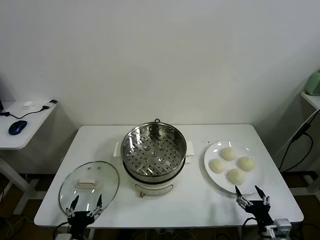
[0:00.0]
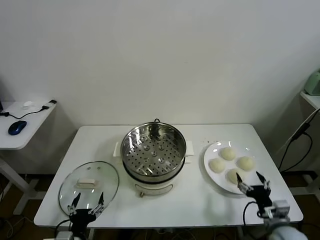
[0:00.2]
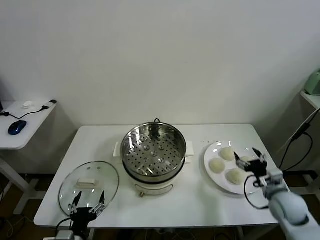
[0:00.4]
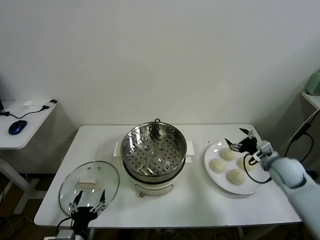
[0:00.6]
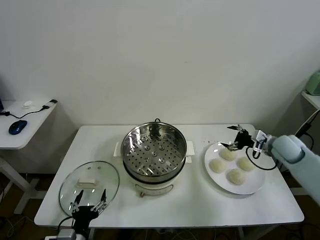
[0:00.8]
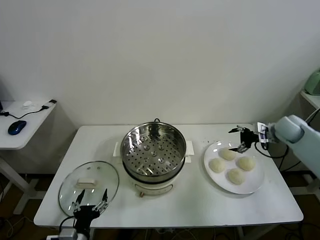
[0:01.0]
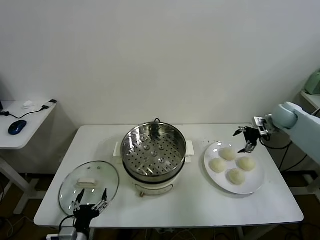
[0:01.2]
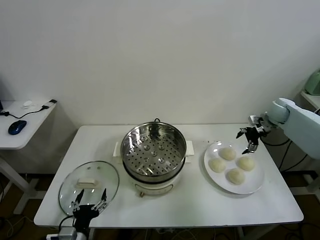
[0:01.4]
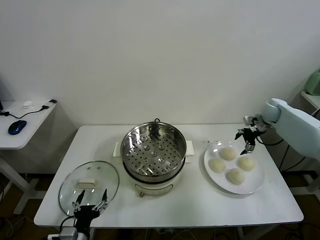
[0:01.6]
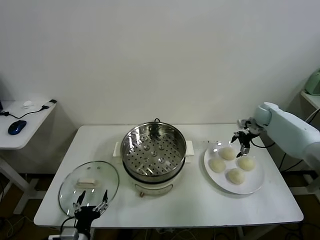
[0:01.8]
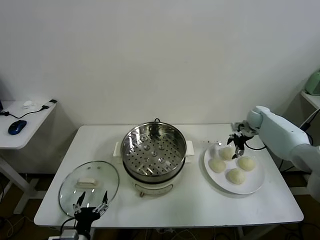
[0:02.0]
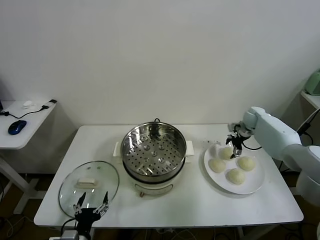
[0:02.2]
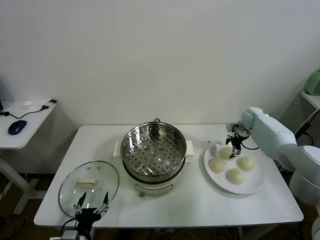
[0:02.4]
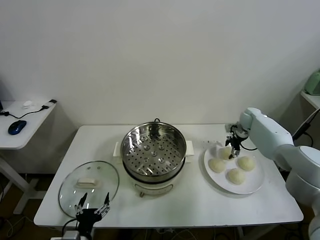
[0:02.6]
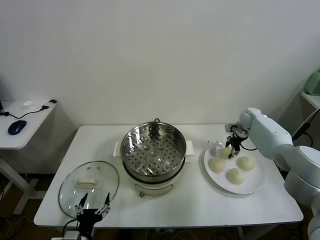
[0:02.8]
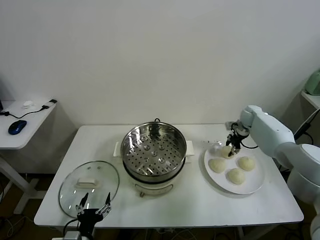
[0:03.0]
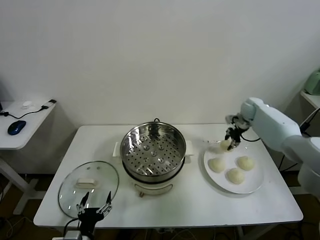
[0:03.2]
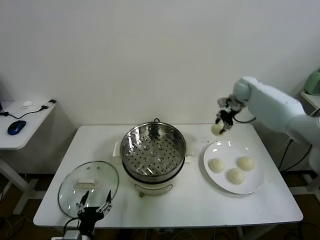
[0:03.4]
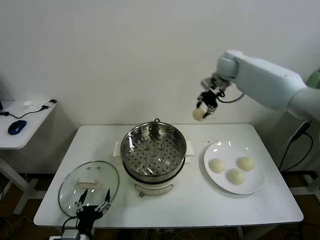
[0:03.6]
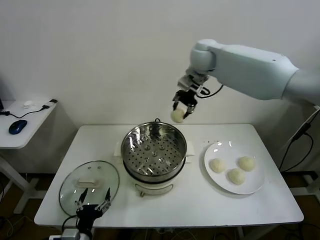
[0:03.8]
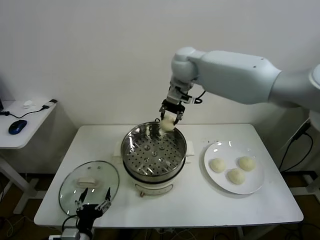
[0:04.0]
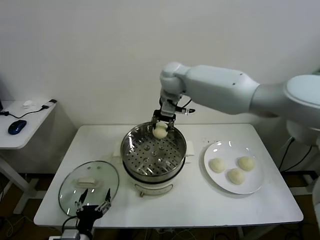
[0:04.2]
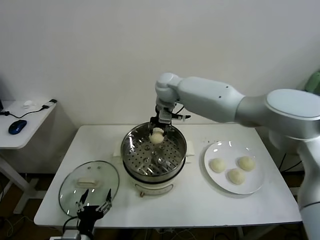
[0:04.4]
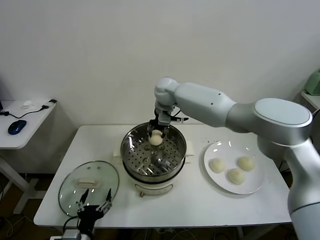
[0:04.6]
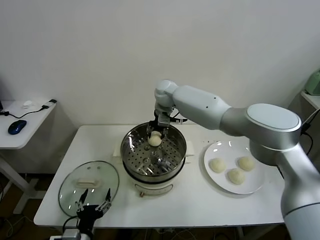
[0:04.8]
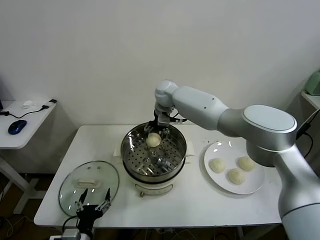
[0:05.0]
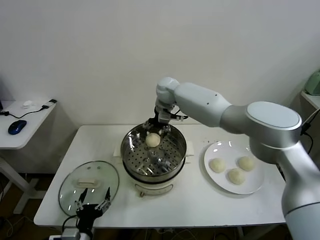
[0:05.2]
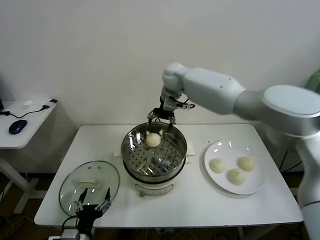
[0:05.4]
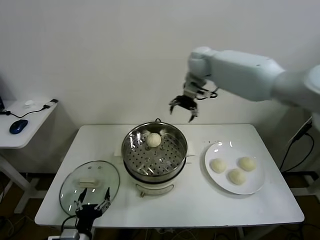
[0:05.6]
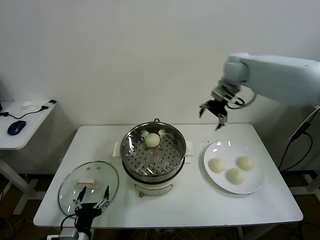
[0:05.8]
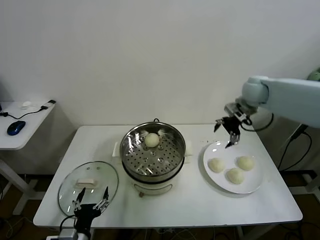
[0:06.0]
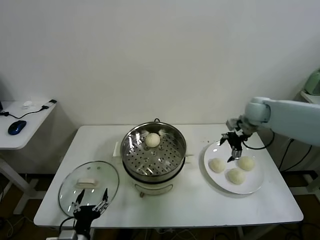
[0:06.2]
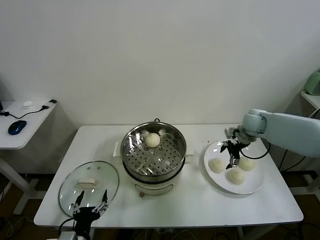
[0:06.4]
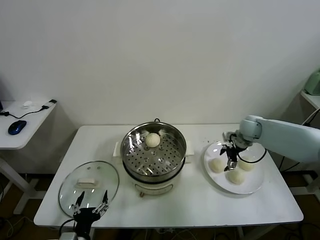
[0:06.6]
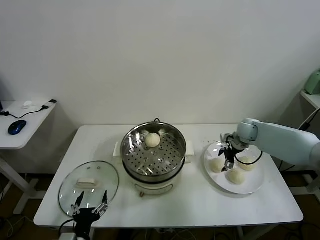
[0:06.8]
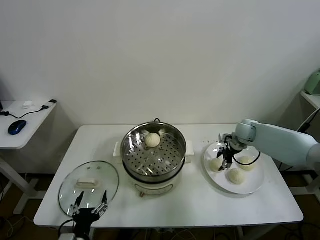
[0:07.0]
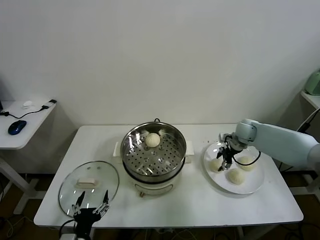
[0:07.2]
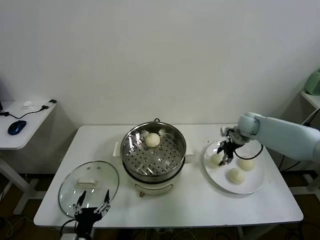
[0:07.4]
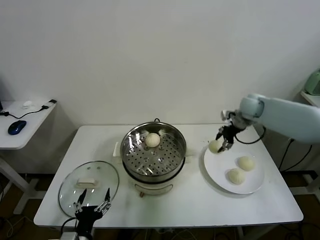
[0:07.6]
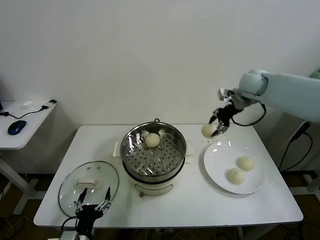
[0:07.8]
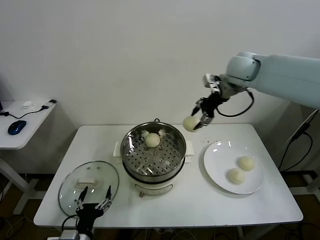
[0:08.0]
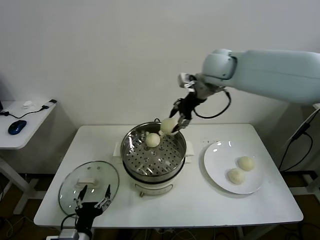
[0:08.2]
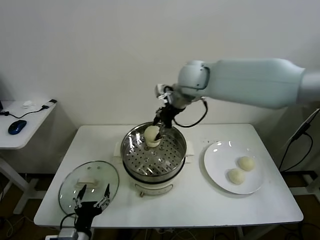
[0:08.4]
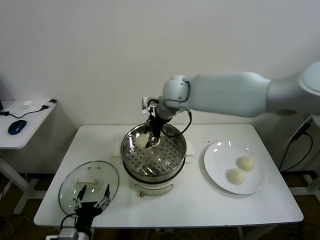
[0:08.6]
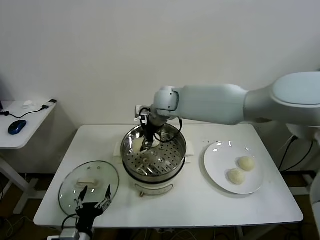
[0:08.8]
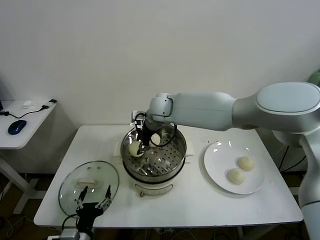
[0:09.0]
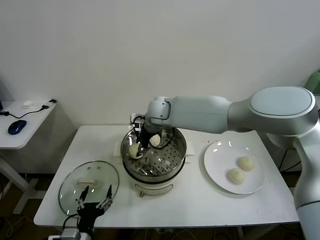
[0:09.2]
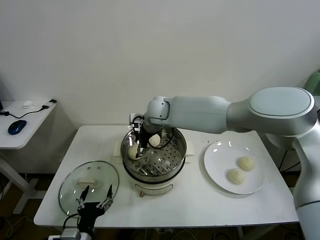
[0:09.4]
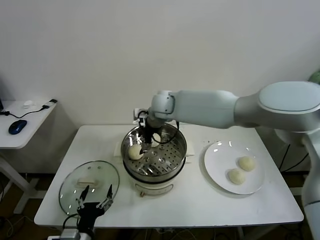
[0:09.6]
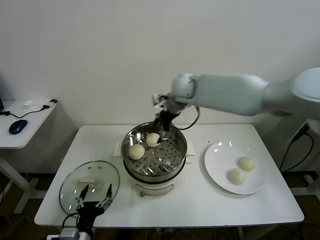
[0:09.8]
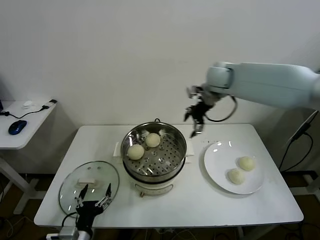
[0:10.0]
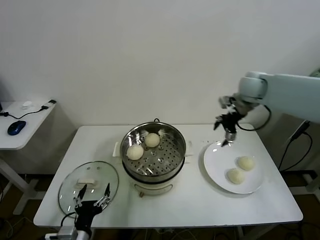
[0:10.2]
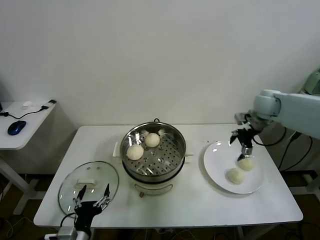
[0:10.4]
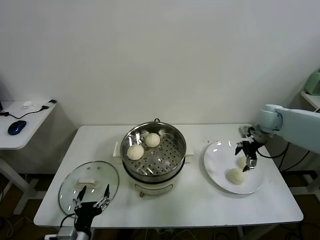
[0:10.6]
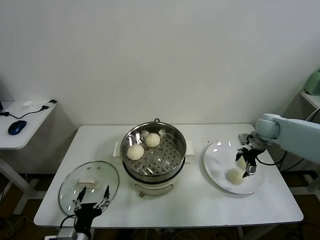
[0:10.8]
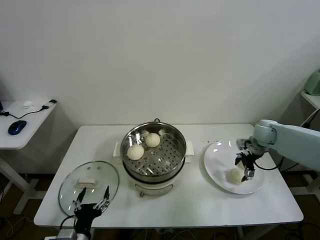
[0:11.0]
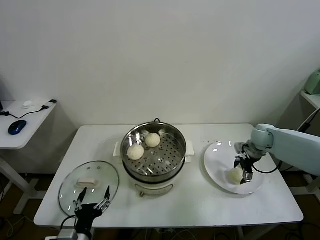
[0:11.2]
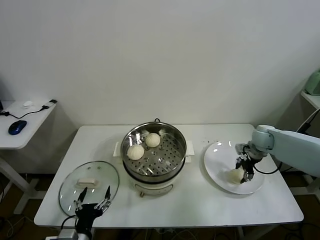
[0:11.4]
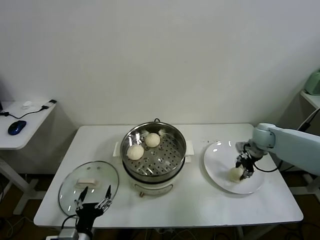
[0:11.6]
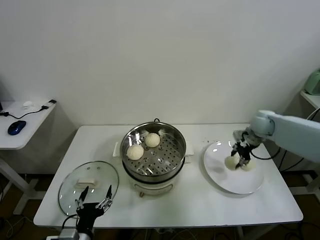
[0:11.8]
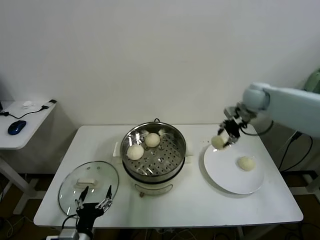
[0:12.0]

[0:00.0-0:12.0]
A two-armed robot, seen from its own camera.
Task of the whole recording: take steamed baozi put them in steamer.
Step, 0:00.0 to 0:02.6: Grasp the baozi in the plate with right gripper.
Step, 0:02.8 to 0:05.2: Place the baozi on the steamer with right gripper.
Step, 0:05.4 to 0:07.2: Grasp the baozi in the plate with right gripper.
Step, 0:07.4 to 0:09.6: Place the baozi on the steamer with right gripper.
Step, 0:09.8 to 0:11.4: Grasp the baozi in the plate with right gripper.
0:01.6 to 0:03.0: The right gripper shifts by about 5 cm, and closes its fingers.
0:03.0 to 0:04.4: The right gripper is displaced to the left by about 35 cm.
0:04.4 to 0:06.0: The right gripper goes about 30 cm to the right, and opens.
0:06.0 to 0:07.6: The right gripper goes downward and returns, roughly 15 cm each way, and closes.
0:07.6 to 0:09.0: The right gripper is displaced to the left by about 35 cm.
0:09.0 to 0:10.4: The right gripper goes approximately 40 cm to the right, and opens its fingers.
0:10.4 to 0:12.0: The right gripper is displaced to the left and upward by about 10 cm, and closes.

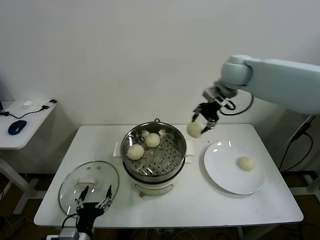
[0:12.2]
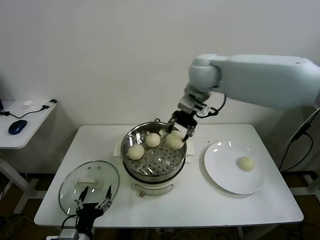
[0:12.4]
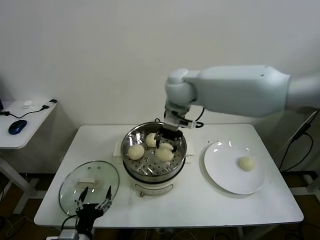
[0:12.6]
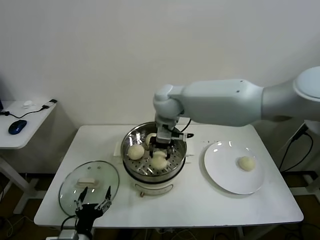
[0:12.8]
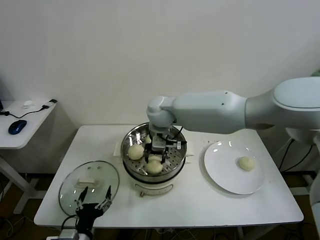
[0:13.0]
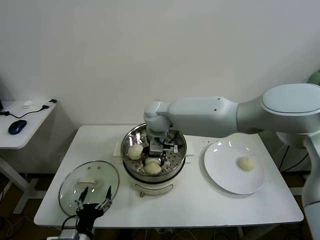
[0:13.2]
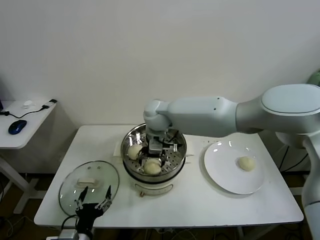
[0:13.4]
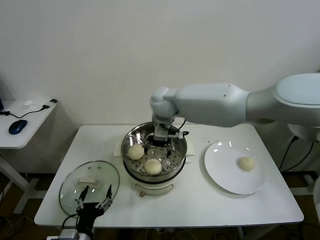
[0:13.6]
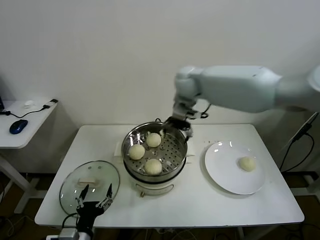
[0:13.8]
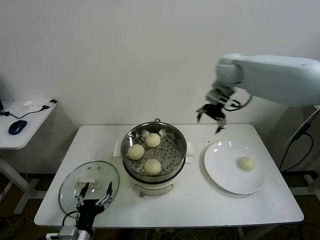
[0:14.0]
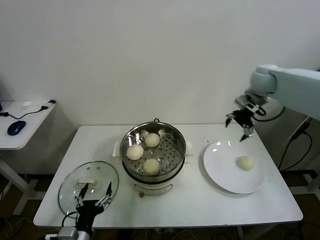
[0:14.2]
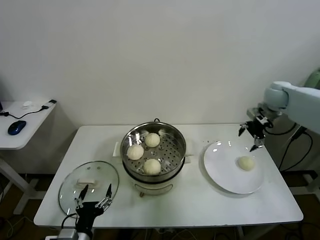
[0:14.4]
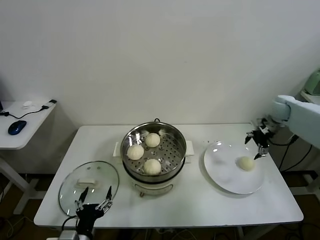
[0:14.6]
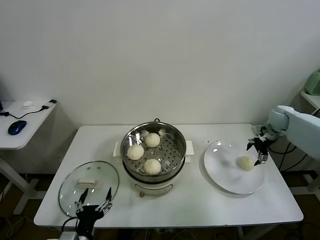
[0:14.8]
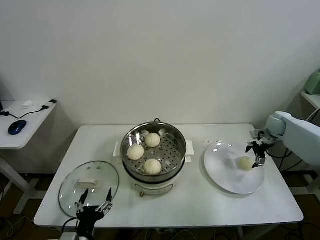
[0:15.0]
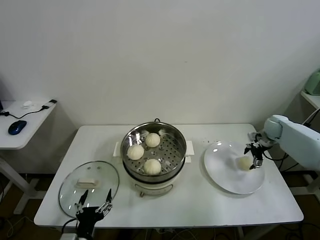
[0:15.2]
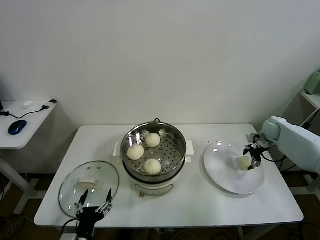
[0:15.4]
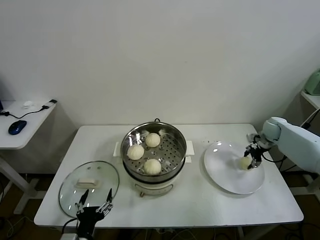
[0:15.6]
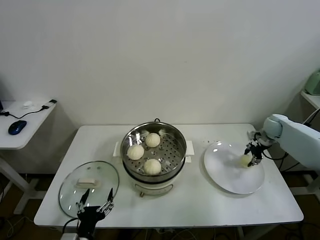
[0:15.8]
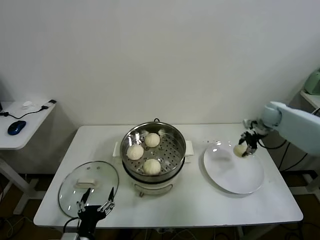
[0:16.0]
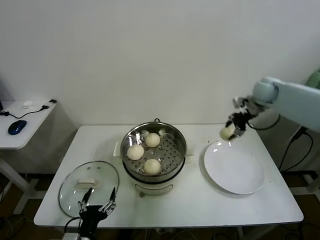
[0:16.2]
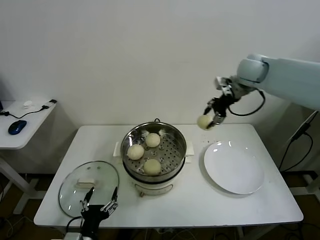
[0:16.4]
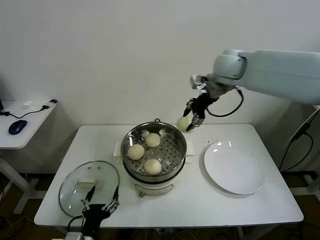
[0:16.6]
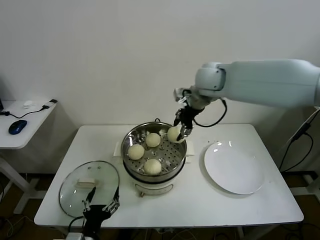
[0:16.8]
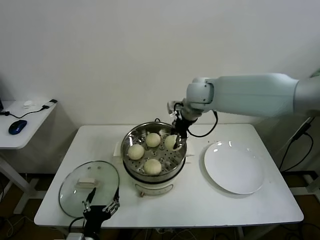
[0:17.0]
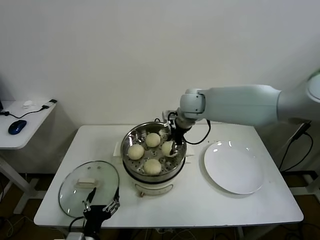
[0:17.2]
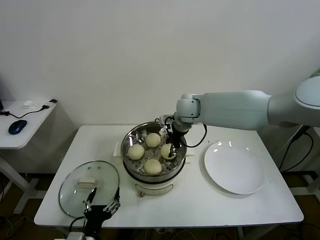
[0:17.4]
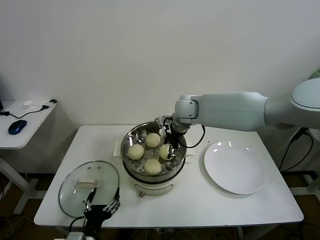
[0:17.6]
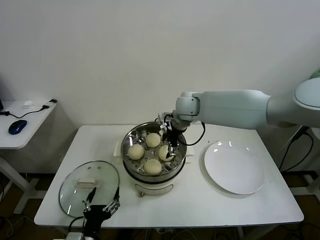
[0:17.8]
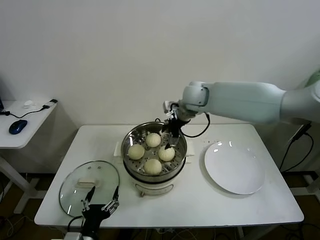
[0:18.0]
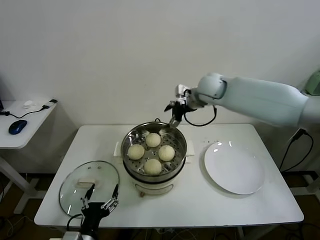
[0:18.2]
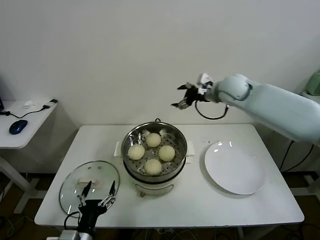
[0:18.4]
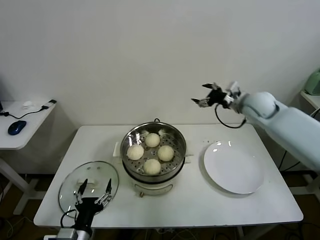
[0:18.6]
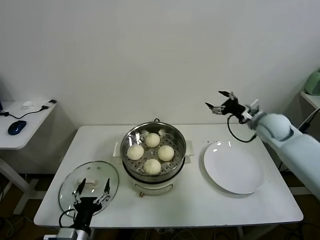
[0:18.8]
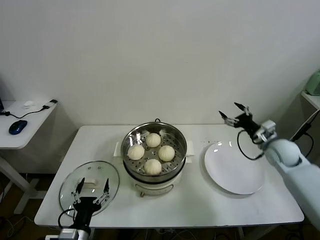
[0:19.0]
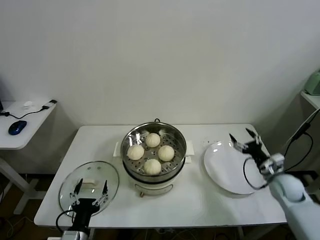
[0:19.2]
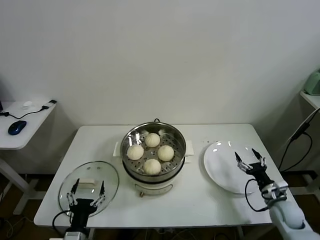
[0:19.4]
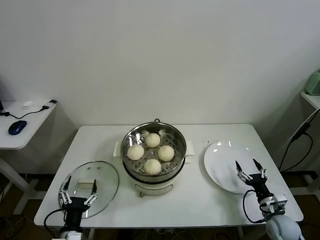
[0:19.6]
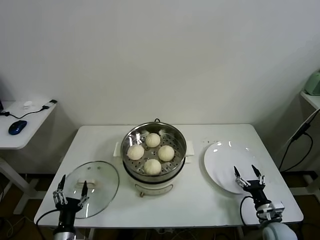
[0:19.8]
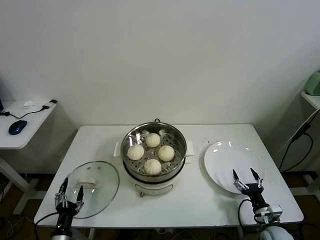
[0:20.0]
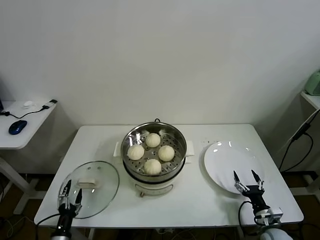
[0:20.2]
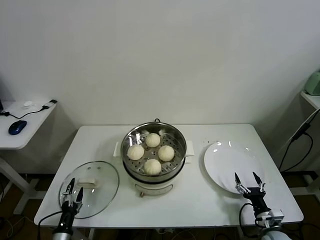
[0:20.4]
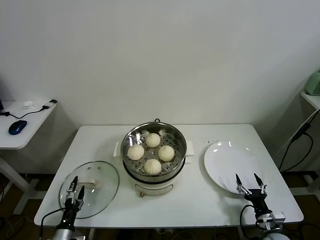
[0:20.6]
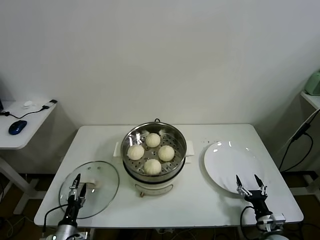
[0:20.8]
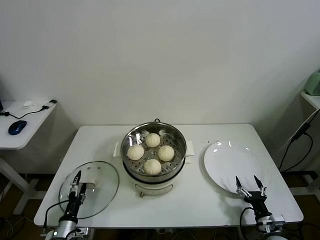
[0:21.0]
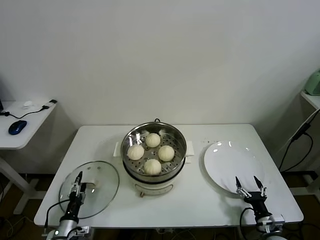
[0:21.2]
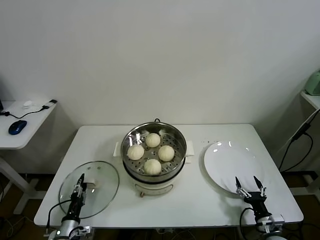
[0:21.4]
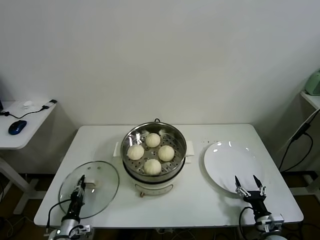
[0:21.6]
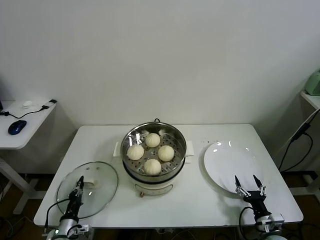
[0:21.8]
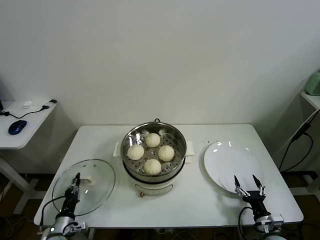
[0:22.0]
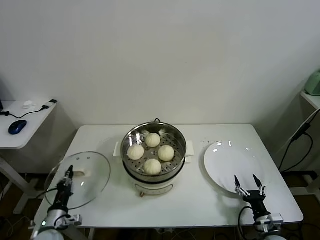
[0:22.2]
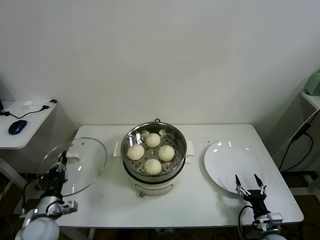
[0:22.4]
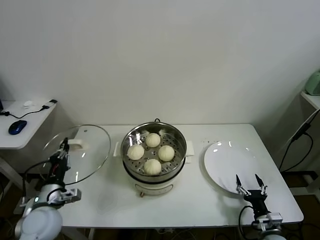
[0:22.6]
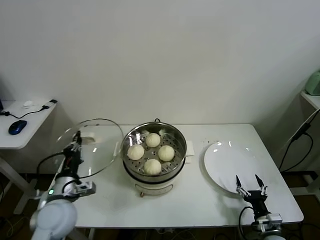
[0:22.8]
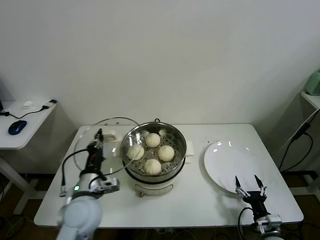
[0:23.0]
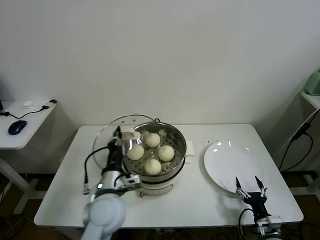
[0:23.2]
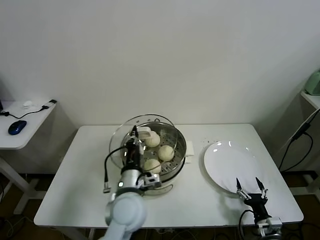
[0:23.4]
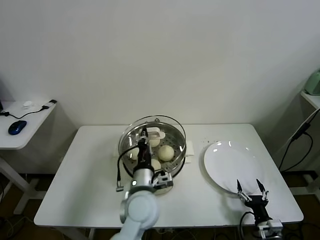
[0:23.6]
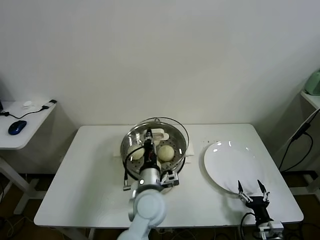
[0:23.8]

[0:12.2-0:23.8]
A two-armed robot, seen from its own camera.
Task of the whole recording: take steamed baozi put them in steamer.
Step, 0:12.2 to 0:13.6: Place the baozi on the steamer with right gripper.
Step, 0:13.8 to 0:15.6: Grasp the baozi in the plate with right gripper.
Step, 0:15.8 to 0:17.8: Place the baozi on the steamer with right gripper.
Step, 0:18.0 to 0:21.8: Grasp the pot lid with left gripper.
0:12.2 to 0:13.6: The right gripper heads to the left and downward, covering approximately 20 cm, and opens up.
0:13.6 to 0:15.0: The right gripper goes approximately 50 cm to the right.
0:15.0 to 0:16.6: The right gripper goes some 40 cm to the left and upward, and closes.
0:16.6 to 0:18.0: The right gripper heads downward and to the left, covering approximately 10 cm, and opens up.
0:18.0 to 0:19.4: The right gripper goes about 50 cm downward, to the right and backward.
0:19.4 to 0:21.0: The left gripper heads downward, to the left and forward, covering roughly 15 cm; the right gripper is displaced backward and downward by roughly 10 cm.
0:21.0 to 0:22.4: The left gripper travels upward by about 10 cm, and closes.
0:22.4 to 0:23.8: The left gripper moves to the right, some 35 cm.
